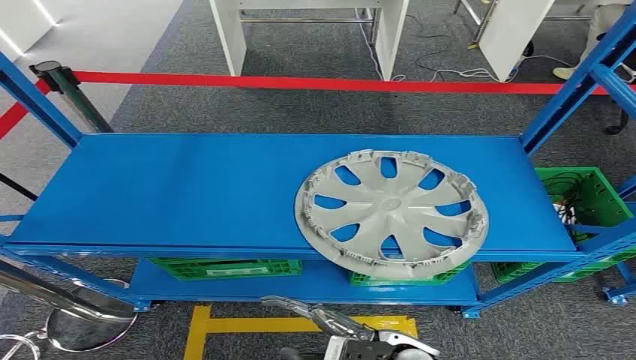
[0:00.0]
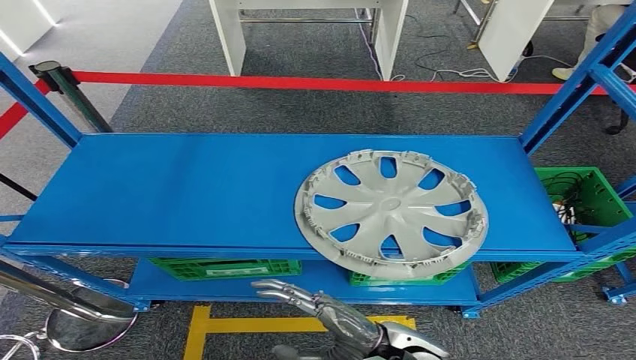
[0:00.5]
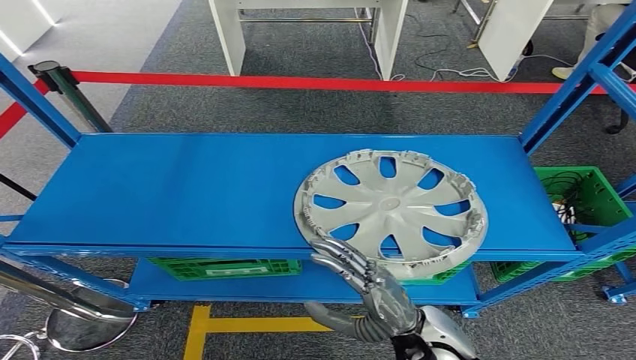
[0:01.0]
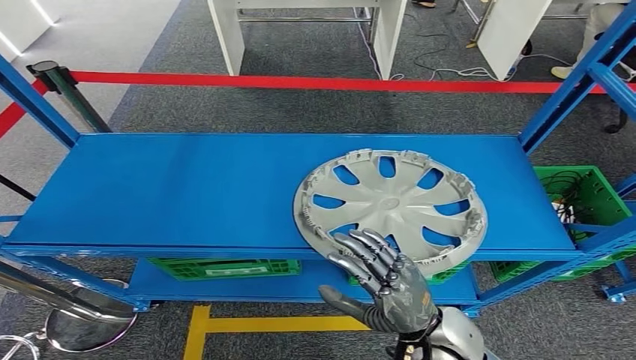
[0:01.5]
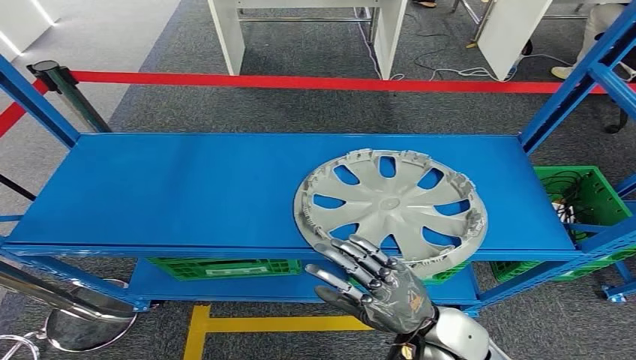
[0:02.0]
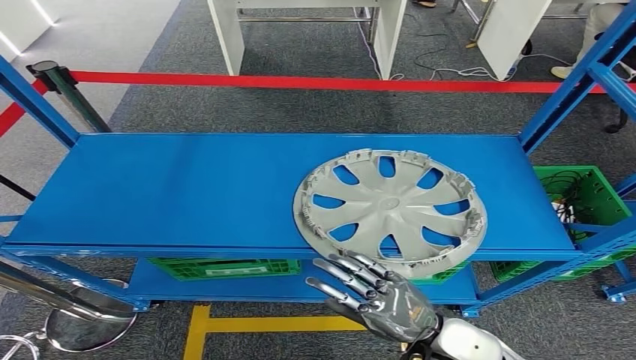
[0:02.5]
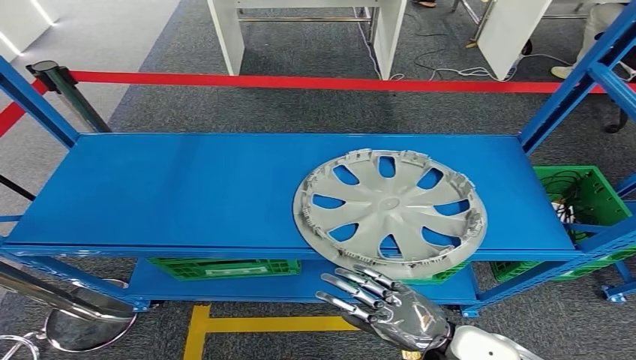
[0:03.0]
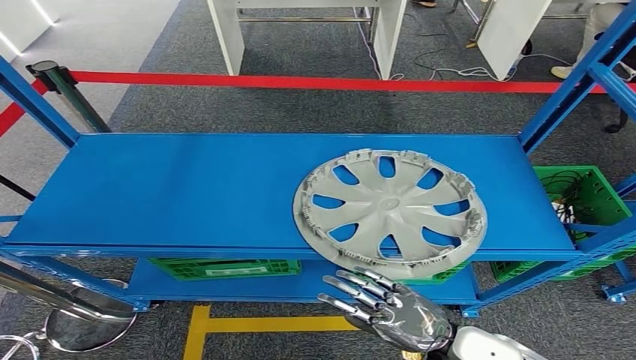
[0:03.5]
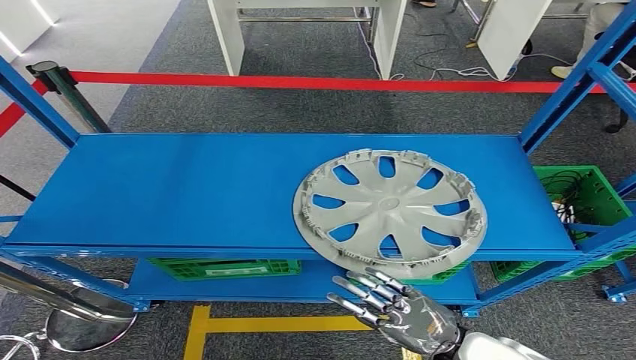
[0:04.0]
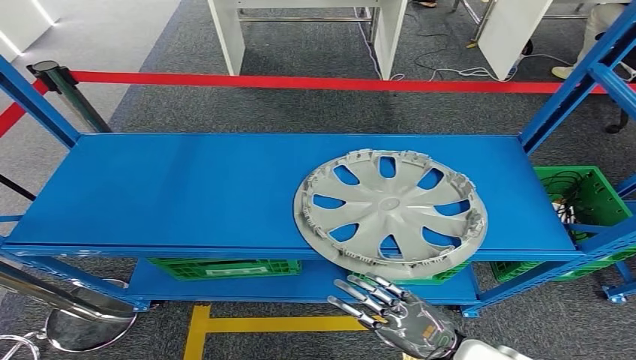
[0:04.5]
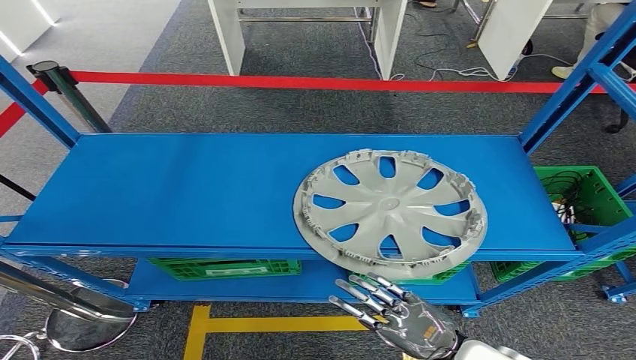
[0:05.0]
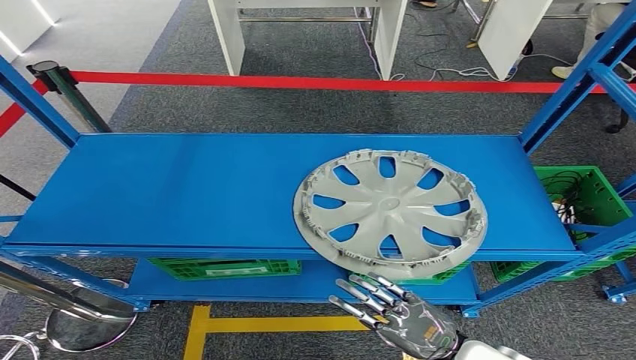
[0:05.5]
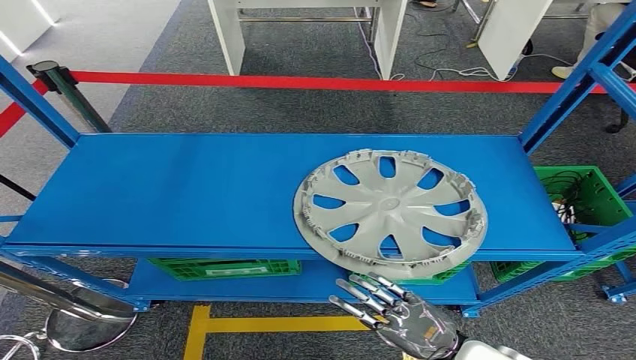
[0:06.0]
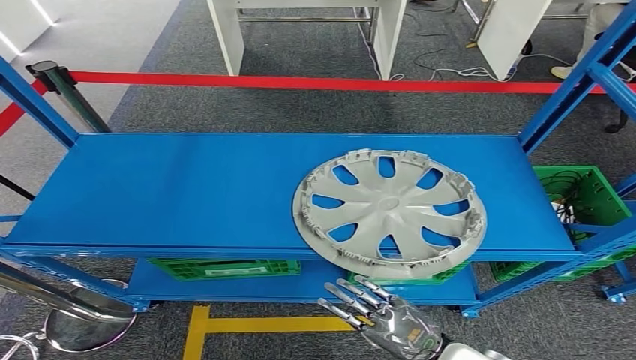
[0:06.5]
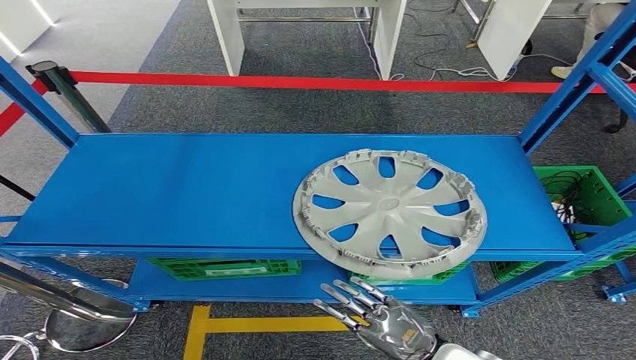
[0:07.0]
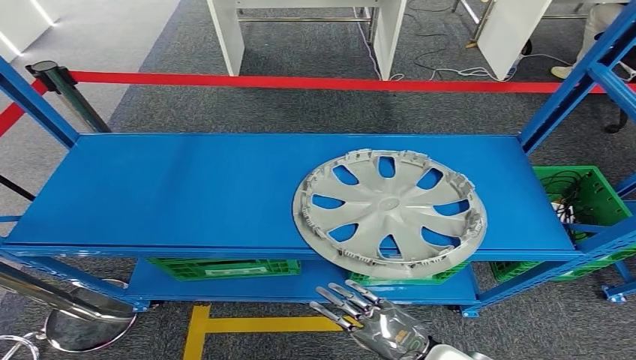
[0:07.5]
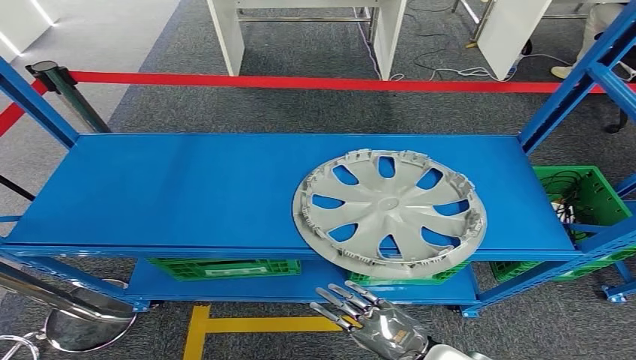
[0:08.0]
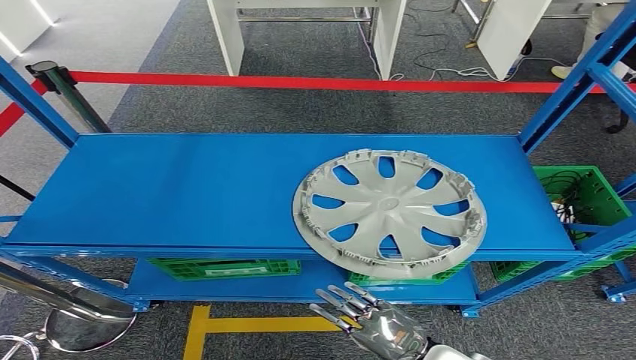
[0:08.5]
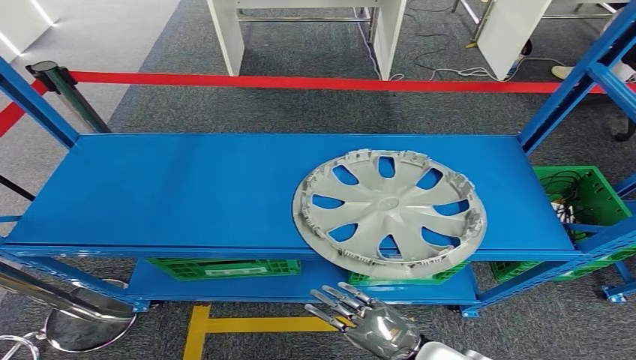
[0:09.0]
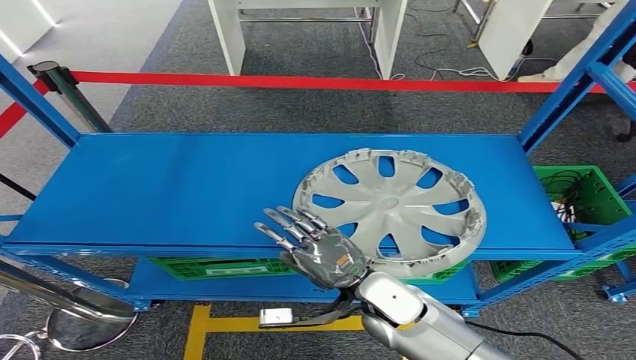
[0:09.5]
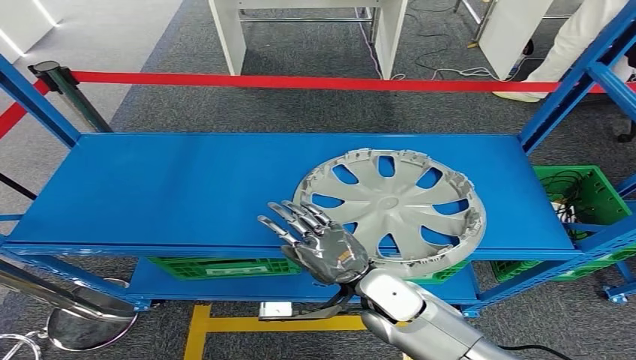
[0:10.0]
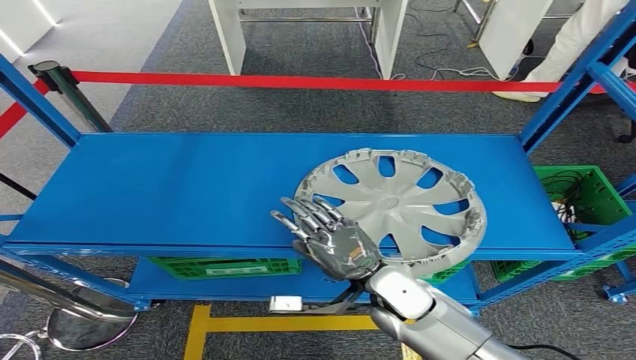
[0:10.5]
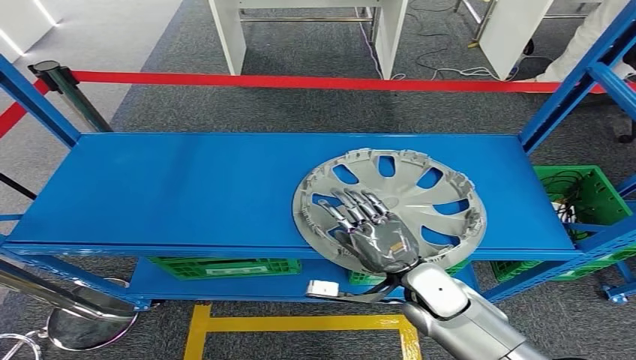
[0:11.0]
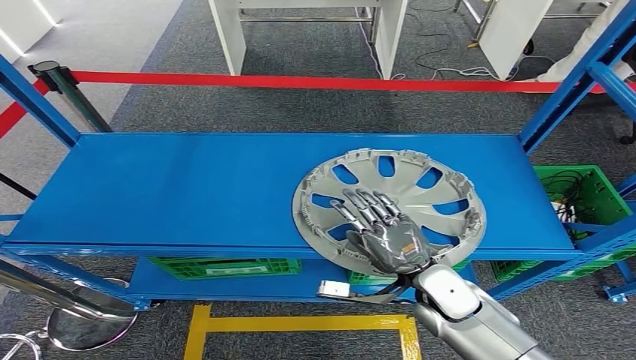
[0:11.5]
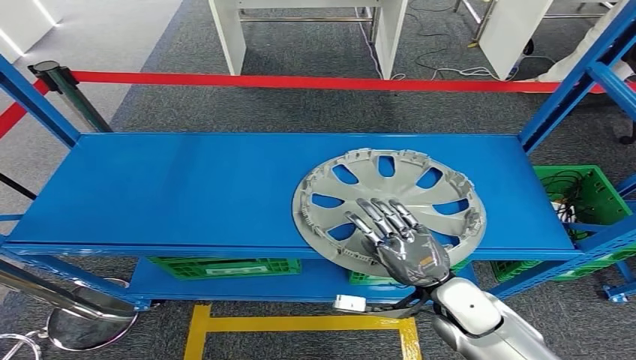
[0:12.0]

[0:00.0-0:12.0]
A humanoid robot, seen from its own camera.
0:02.0 to 0:04.0: The right hand goes approximately 10 cm to the right and downward.
0:04.0 to 0:08.0: There are only small adjustments of the hands.
0:08.0 to 0:10.0: The right hand moves forward, to the left and upward, about 15 cm.
0:10.0 to 0:12.0: The right hand shifts roughly 10 cm to the right.

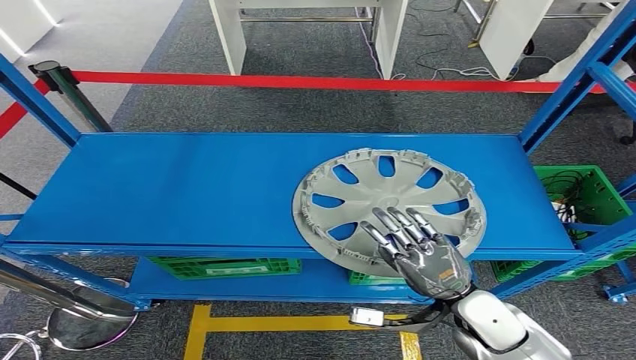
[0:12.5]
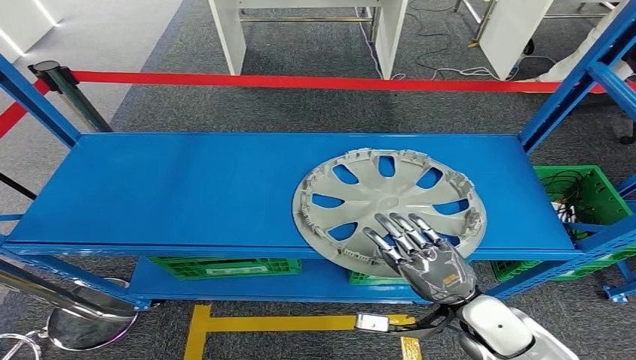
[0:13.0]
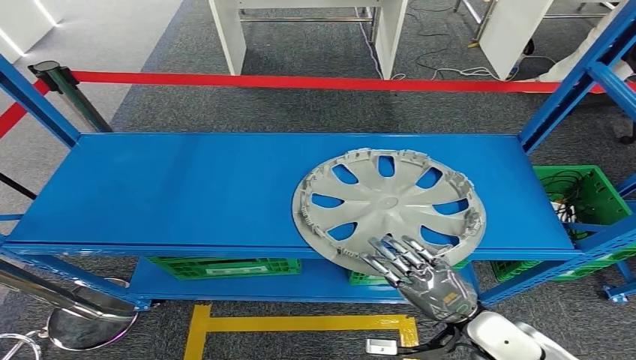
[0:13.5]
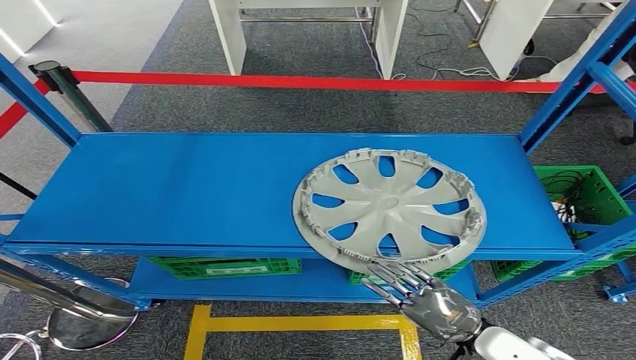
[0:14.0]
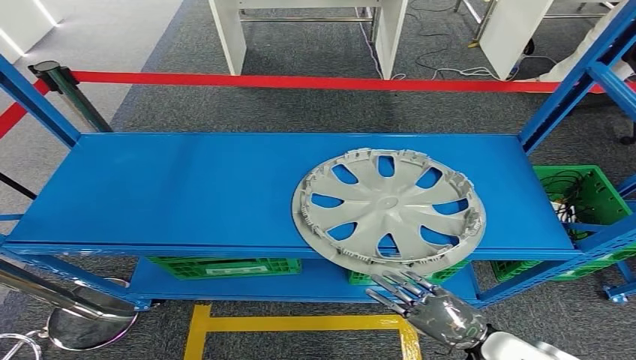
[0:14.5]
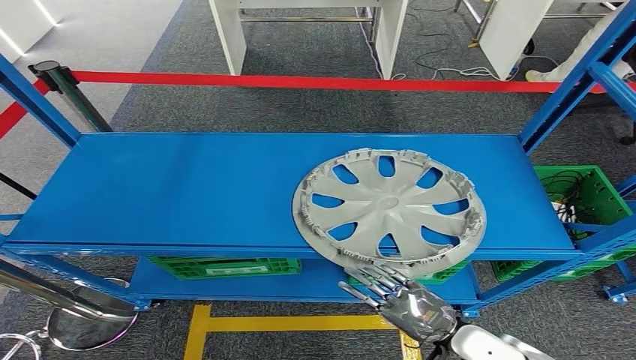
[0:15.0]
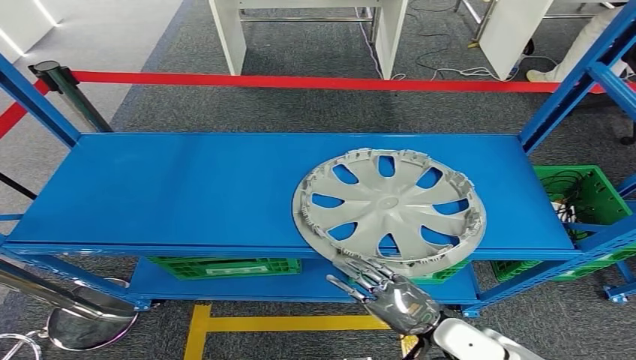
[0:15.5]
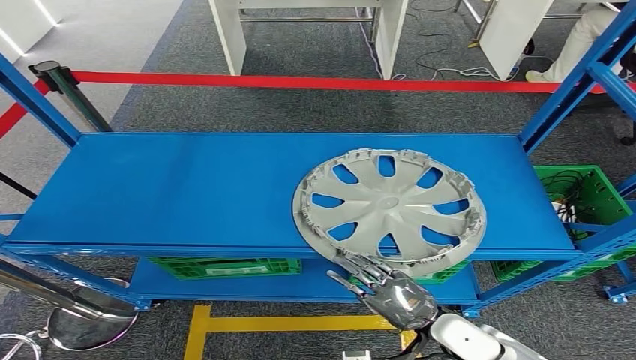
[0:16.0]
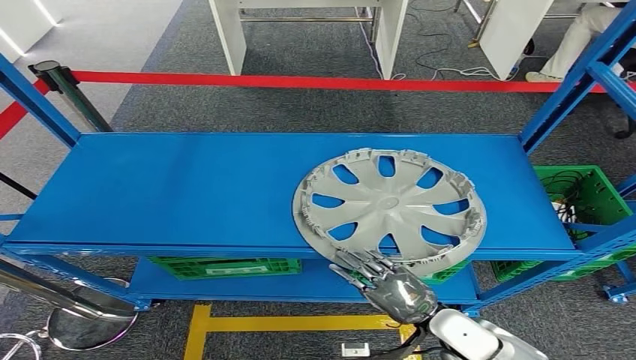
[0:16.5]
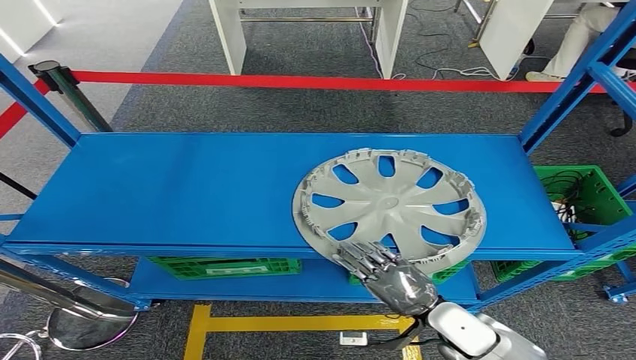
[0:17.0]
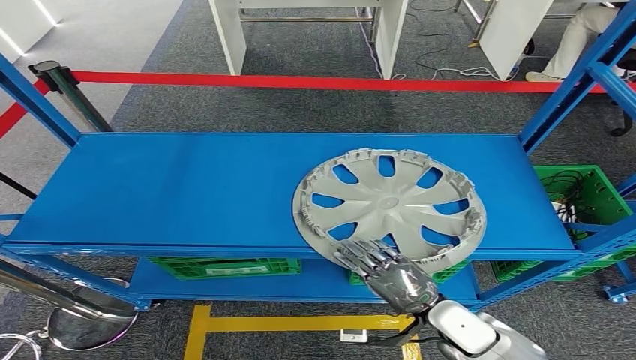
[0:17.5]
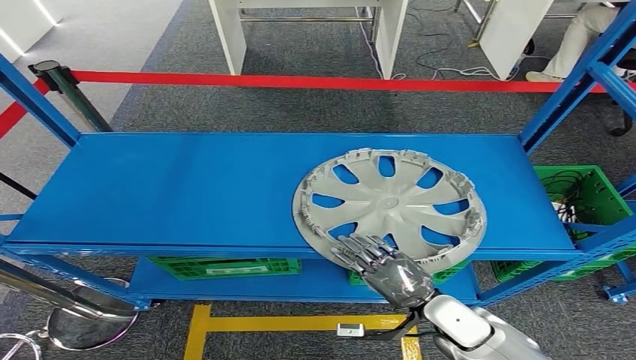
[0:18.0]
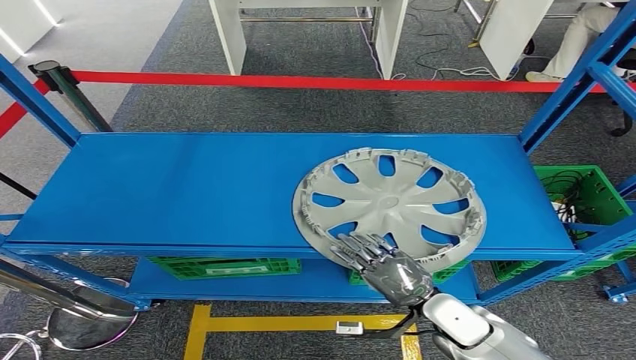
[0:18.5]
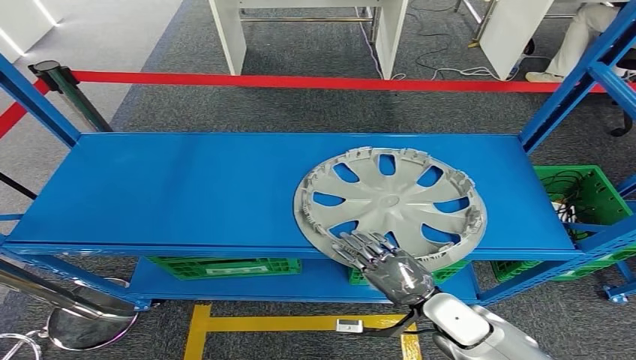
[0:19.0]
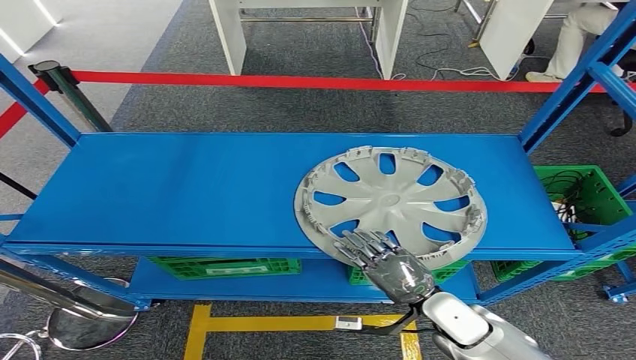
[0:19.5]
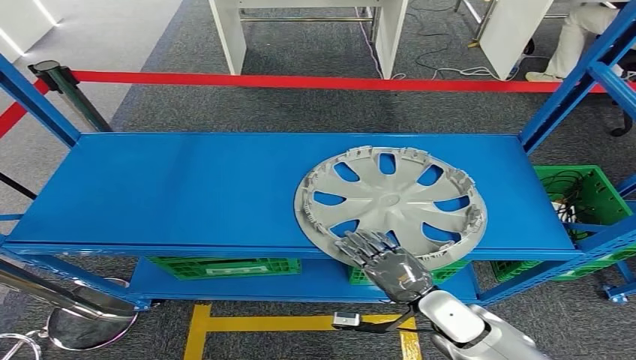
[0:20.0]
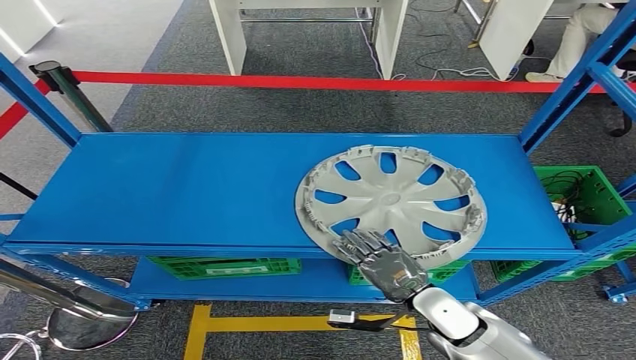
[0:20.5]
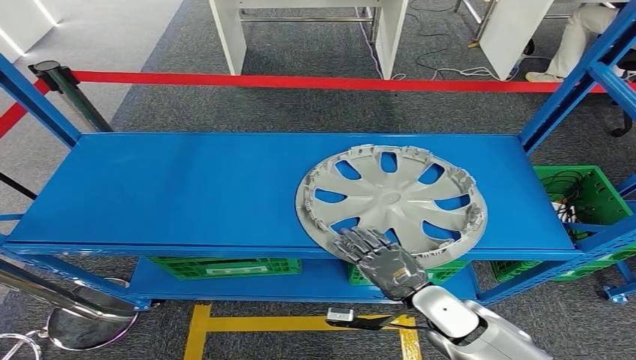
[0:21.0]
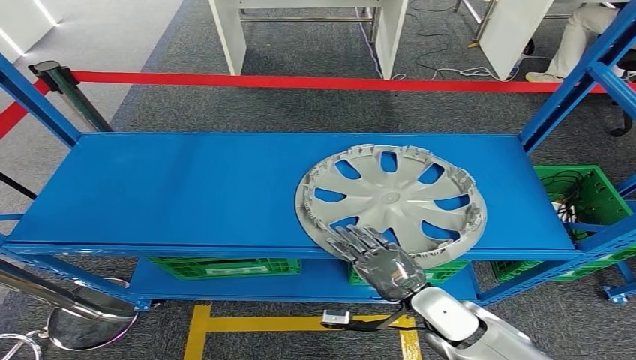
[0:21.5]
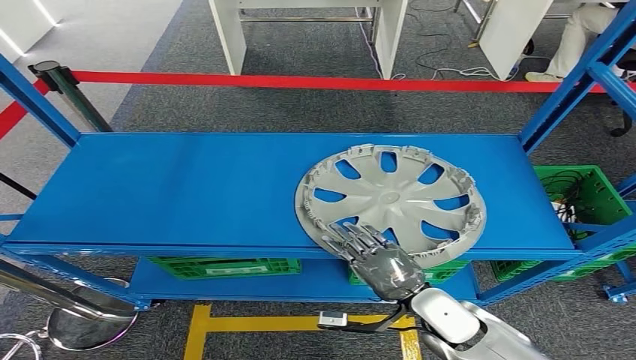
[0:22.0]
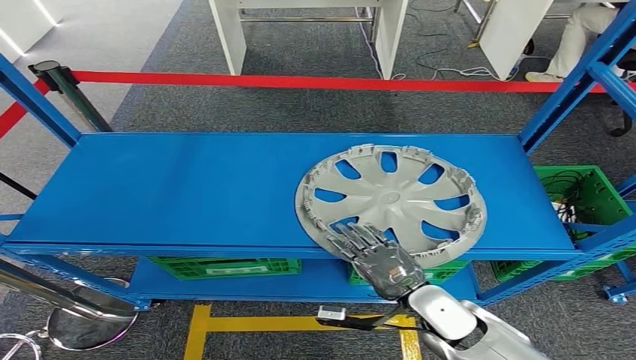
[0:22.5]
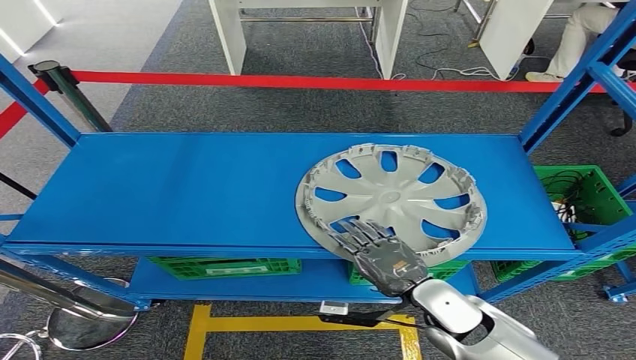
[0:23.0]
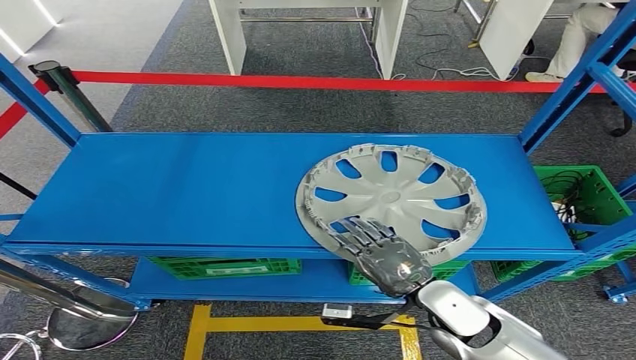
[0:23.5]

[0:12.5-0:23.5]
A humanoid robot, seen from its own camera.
0:12.5 to 0:14.5: The right hand heads backward and downward, covering some 10 cm.
0:14.5 to 0:16.0: The right hand is displaced to the left by approximately 5 cm.
0:16.0 to 0:21.5: The hands stay close to where they were, moving slightly.
0:21.5 to 0:23.5: The hands make only small movements.
